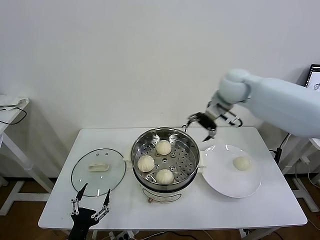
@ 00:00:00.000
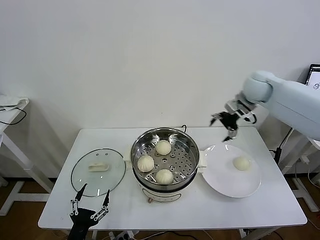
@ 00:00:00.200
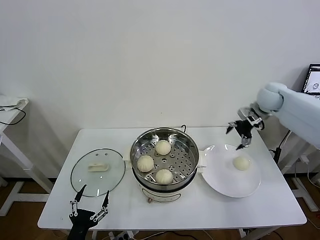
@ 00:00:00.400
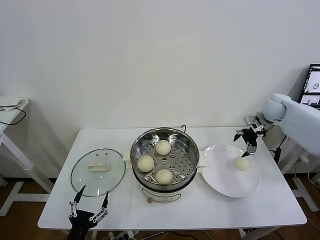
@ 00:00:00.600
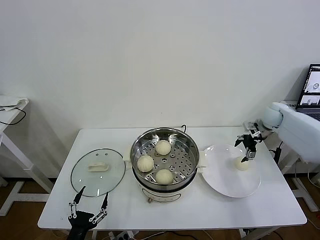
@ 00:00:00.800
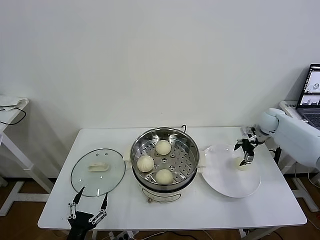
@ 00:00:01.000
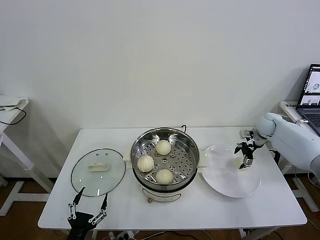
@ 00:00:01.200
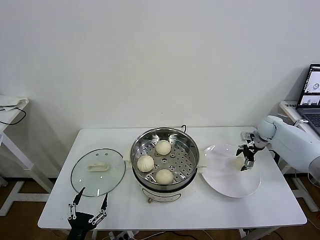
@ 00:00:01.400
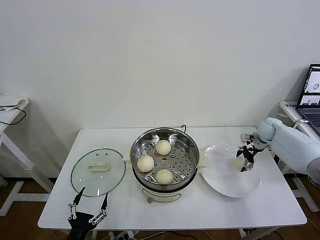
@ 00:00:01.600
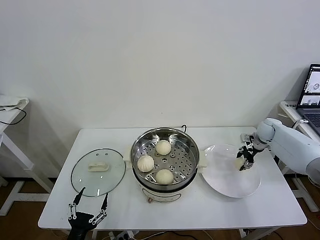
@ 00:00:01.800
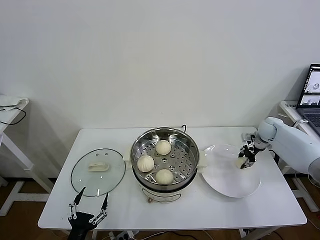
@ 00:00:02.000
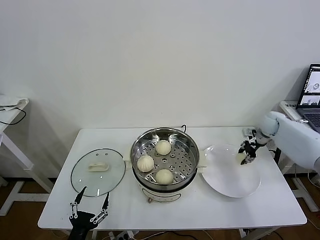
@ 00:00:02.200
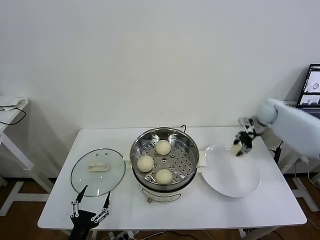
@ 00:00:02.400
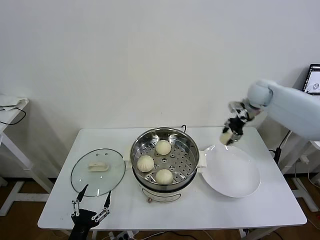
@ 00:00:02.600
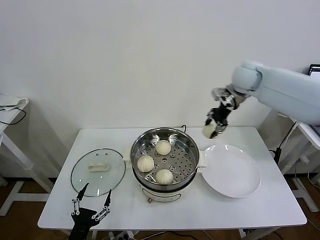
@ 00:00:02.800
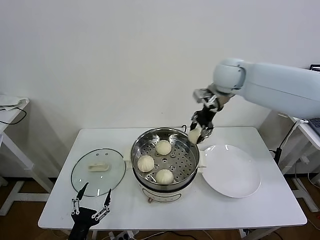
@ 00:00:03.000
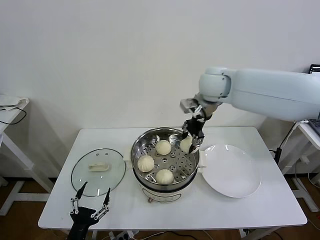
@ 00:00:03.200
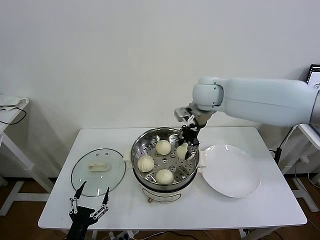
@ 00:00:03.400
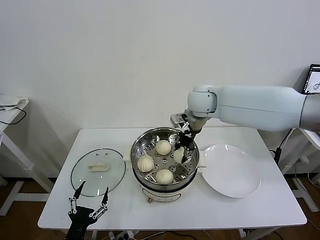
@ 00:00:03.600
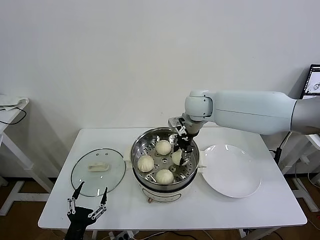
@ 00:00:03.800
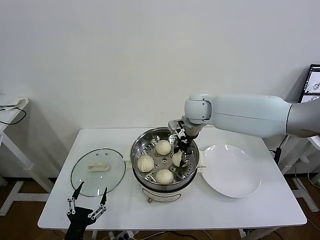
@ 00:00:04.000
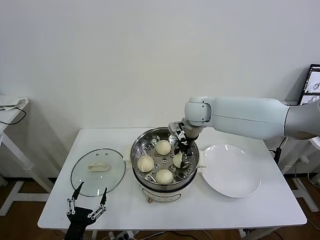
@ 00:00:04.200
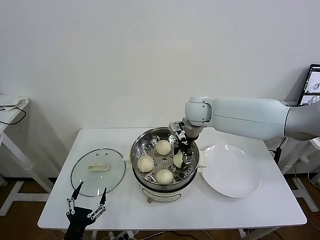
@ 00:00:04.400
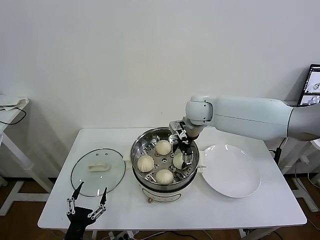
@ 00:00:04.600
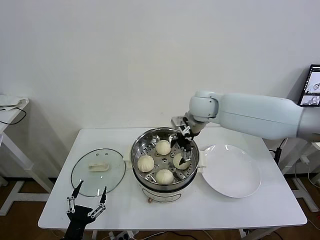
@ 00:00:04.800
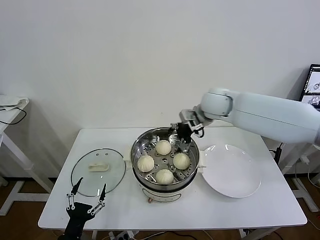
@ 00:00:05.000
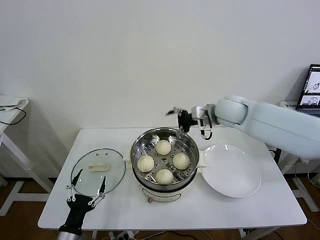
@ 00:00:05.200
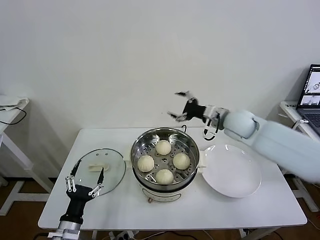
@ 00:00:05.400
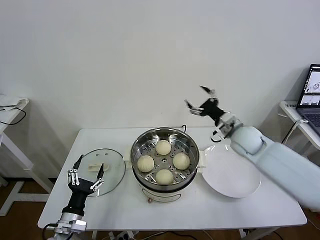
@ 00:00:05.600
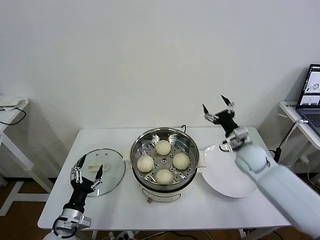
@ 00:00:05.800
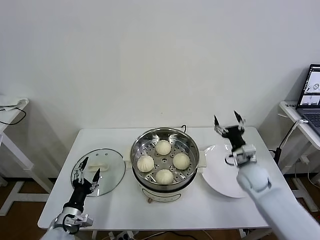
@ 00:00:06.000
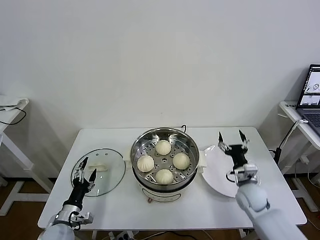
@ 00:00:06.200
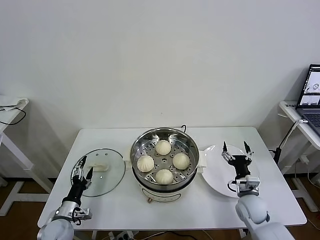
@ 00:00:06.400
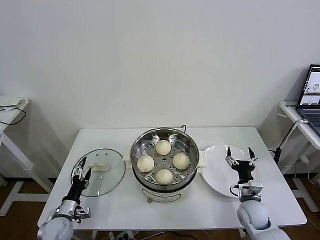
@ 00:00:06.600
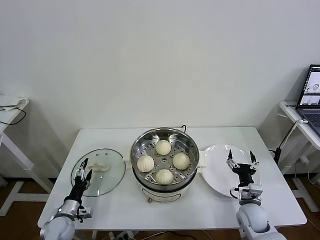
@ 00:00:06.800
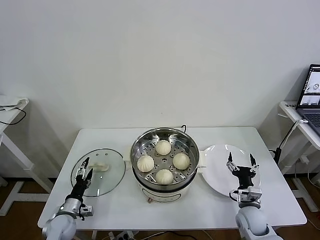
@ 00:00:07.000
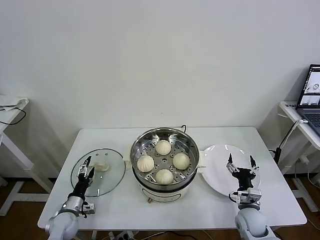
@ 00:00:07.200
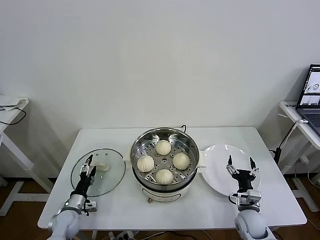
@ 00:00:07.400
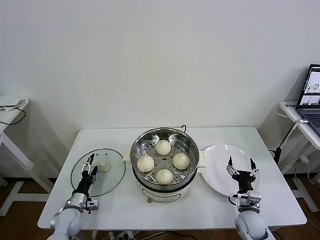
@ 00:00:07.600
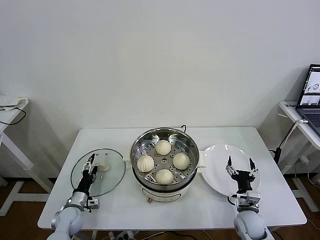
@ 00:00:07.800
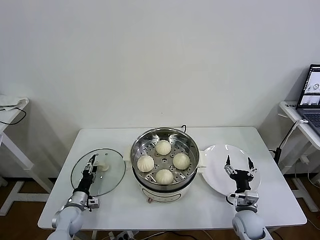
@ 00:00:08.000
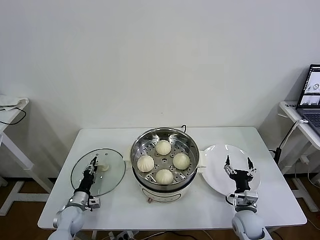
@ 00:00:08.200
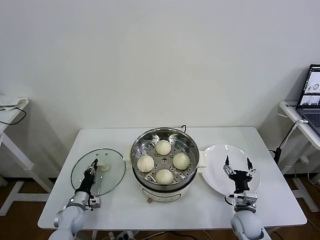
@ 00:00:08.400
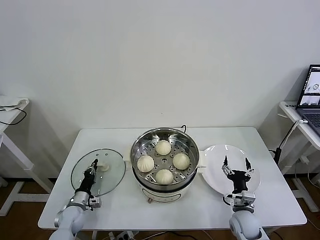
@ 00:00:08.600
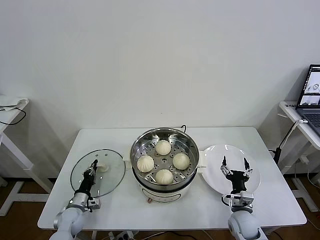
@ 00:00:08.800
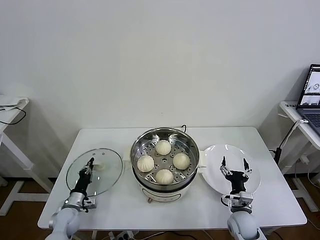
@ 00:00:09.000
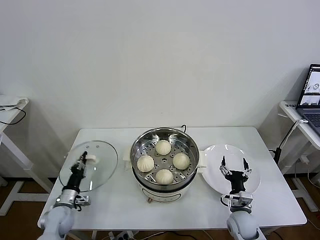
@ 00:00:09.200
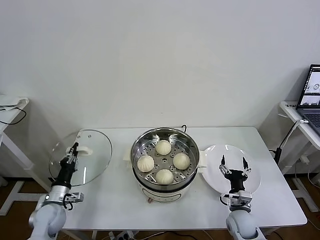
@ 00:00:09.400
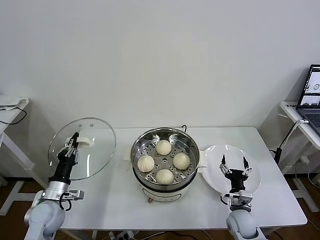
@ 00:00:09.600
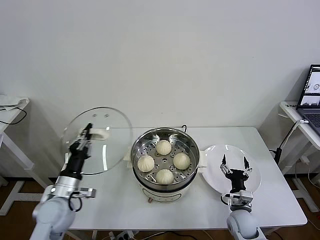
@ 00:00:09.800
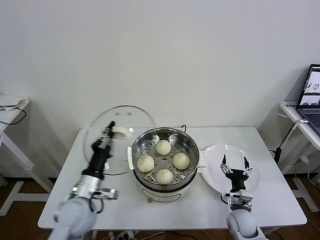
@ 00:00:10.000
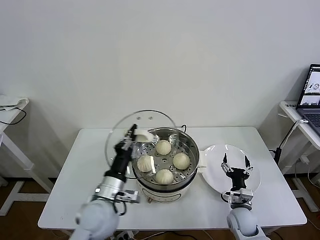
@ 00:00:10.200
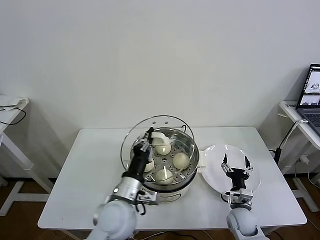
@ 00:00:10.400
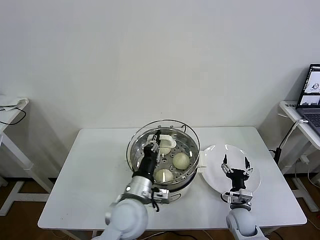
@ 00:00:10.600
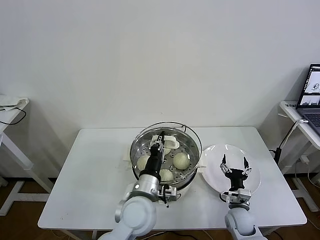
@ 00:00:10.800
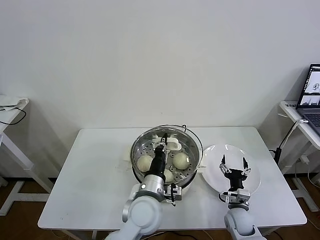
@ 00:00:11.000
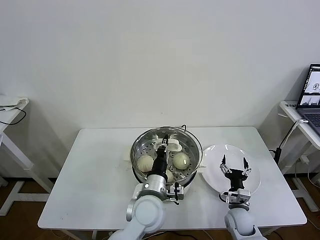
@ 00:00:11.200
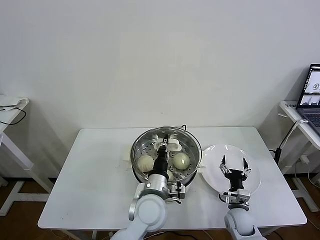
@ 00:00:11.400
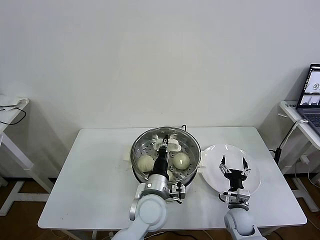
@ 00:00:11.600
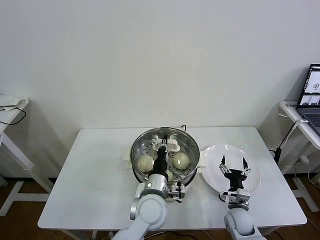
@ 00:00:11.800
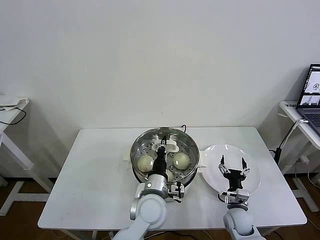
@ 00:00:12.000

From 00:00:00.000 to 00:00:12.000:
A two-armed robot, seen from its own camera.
Task of the whole recording: take steamed baozi put them in steamer then cover it.
Step, from 00:00:00.000 to 00:00:02.000: Grasp the baozi in the plate with right gripper.
Step, from 00:00:02.200 to 00:00:04.600: Place the baozi on the steamer with right gripper.
Step, from 00:00:04.800 to 00:00:08.600: Grasp the pot lid with left gripper.
From 00:00:00.000 to 00:00:01.600: The right gripper travels downward and to the right by about 30 cm.
From 00:00:01.600 to 00:00:03.000: The right gripper goes roughly 35 cm upward and to the left, and closes its fingers.
From 00:00:03.000 to 00:00:04.400: The right gripper goes roughly 15 cm downward and to the left, and opens.
From 00:00:04.400 to 00:00:06.000: The left gripper shifts about 10 cm forward, while the right gripper shifts about 30 cm to the right, downward and backward, and opens up.
From 00:00:06.000 to 00:00:07.600: The right gripper shifts some 20 cm downward and backward, while the left gripper is displaced forward and downward by about 10 cm.
From 00:00:07.600 to 00:00:09.000: The left gripper closes.
From 00:00:09.000 to 00:00:10.400: The left gripper shifts some 30 cm upward and to the right.
From 00:00:10.400 to 00:00:12.000: The left gripper travels to the right by some 10 cm.

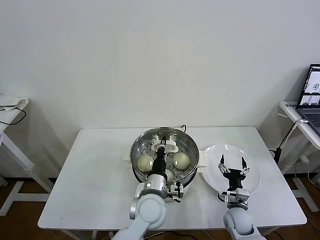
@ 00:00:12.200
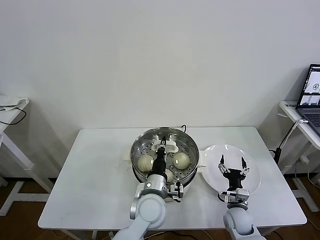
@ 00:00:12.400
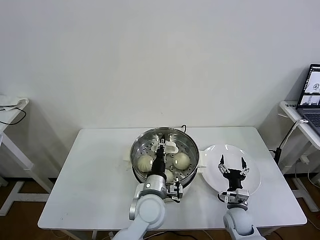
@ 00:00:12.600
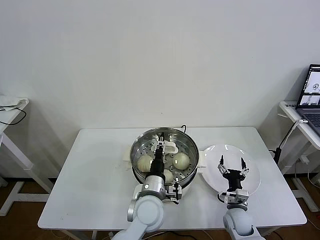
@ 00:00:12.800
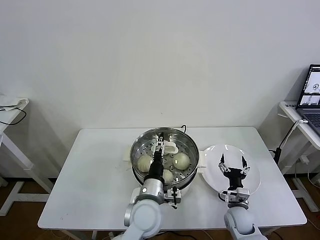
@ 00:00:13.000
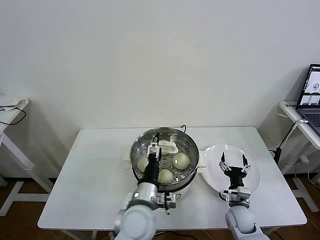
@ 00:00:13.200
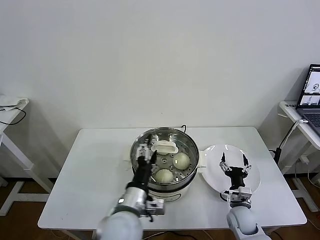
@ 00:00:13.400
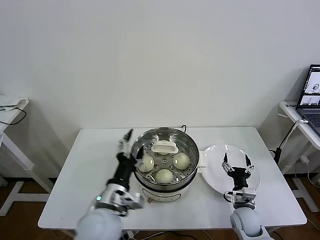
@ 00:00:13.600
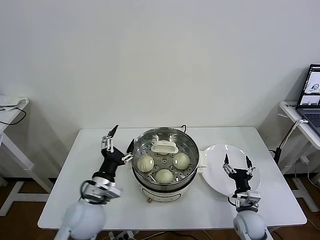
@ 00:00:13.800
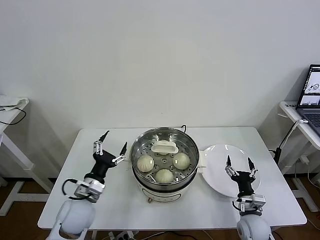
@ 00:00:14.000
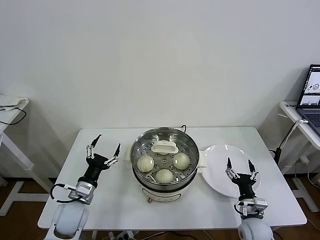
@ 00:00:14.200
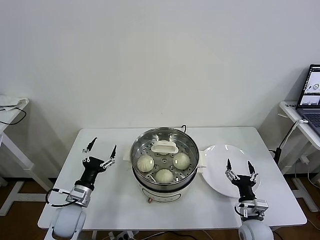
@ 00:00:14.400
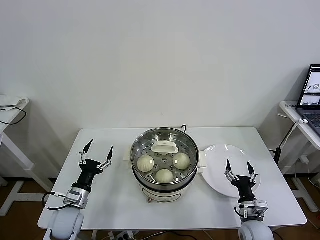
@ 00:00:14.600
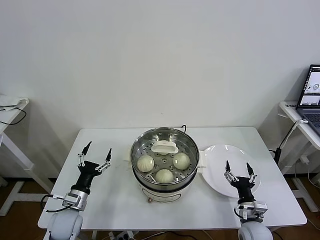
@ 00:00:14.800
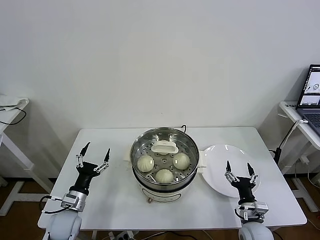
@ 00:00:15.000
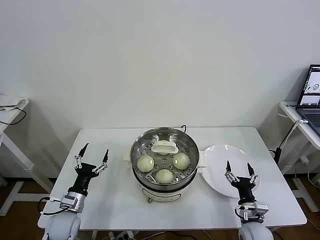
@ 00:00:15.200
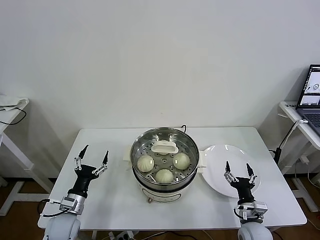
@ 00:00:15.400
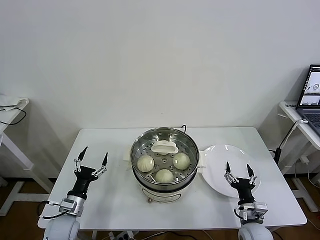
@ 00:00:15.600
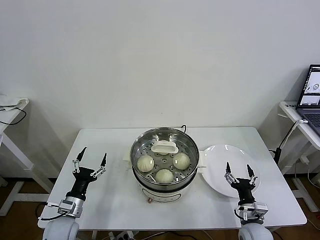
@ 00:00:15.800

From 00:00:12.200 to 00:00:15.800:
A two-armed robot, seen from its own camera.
Task of the whole recording: take steamed baozi put them in steamer then cover it.
From 00:00:12.200 to 00:00:14.000: The right gripper changes place by about 5 cm. The left gripper heads to the left, covering some 20 cm, and opens up.
From 00:00:14.000 to 00:00:15.800: The left gripper shifts roughly 15 cm downward and to the left.
